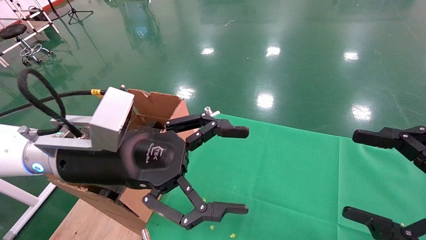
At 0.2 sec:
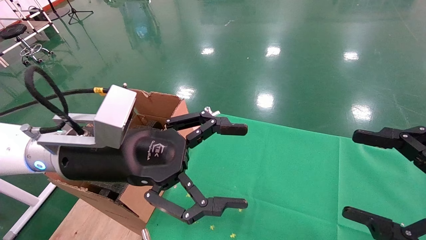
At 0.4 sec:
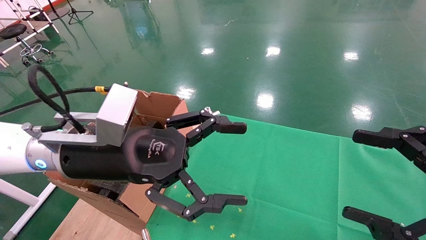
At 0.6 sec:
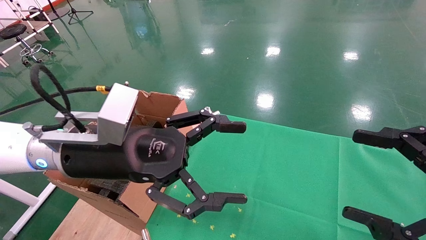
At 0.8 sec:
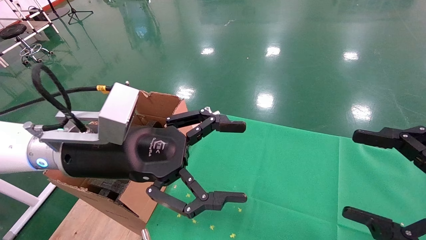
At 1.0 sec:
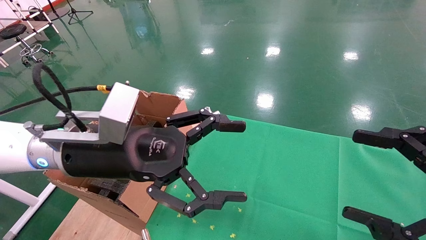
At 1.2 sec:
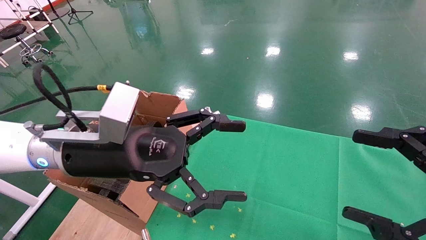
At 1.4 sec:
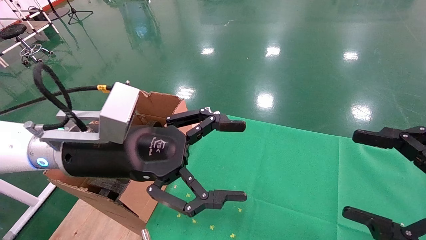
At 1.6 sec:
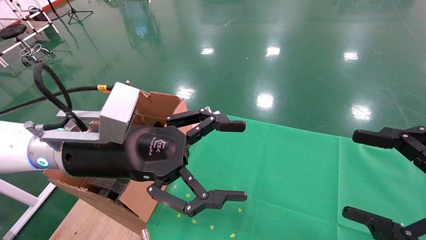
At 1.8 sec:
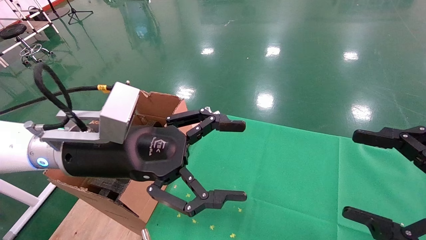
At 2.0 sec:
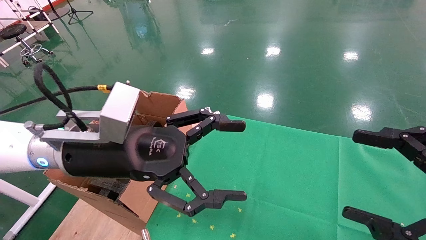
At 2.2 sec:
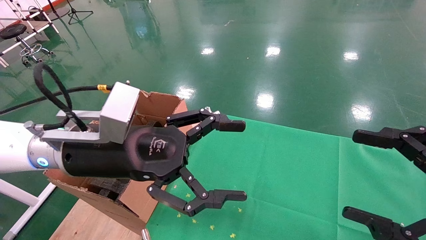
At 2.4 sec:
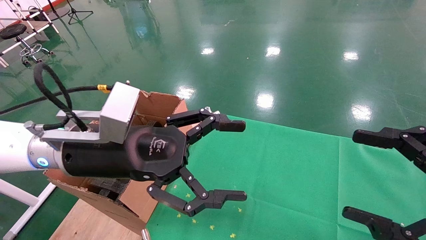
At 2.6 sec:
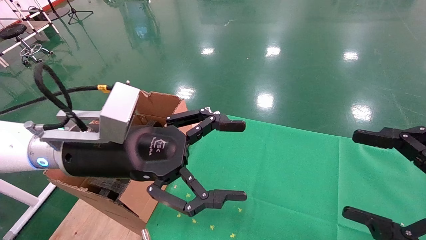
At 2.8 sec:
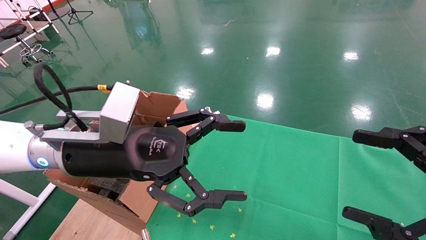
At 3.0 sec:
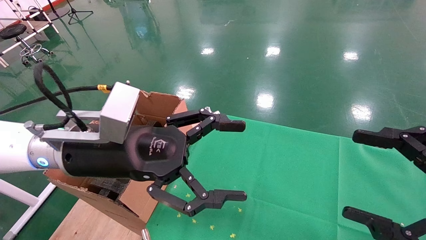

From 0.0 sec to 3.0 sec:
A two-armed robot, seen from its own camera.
Task of the whole recording: using a robotic arm to pick up a cardboard box and palace it the carton.
From 0.0 sec to 3.0 sec: The two grippers keep their place.
